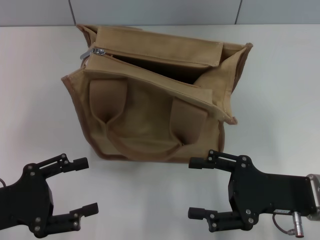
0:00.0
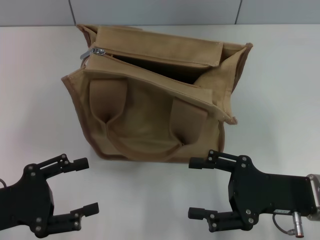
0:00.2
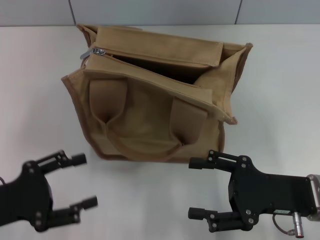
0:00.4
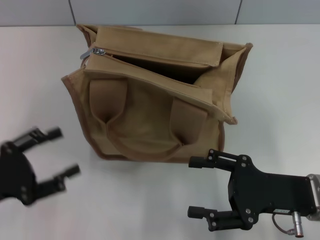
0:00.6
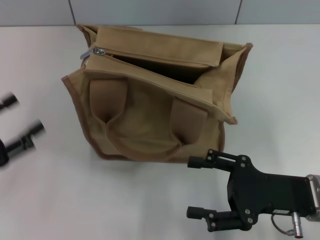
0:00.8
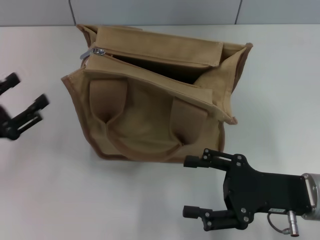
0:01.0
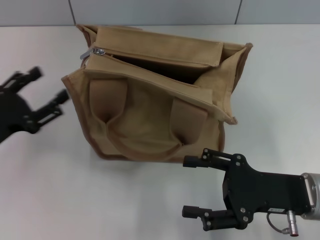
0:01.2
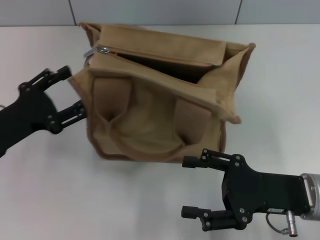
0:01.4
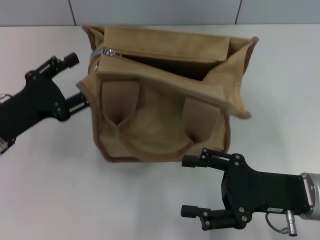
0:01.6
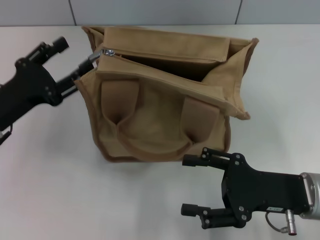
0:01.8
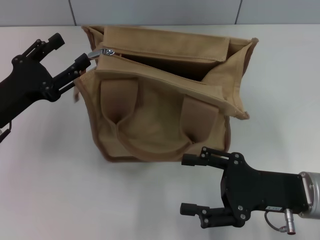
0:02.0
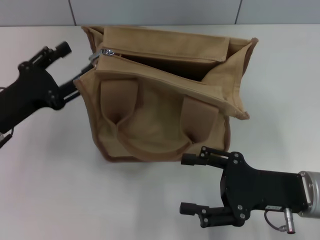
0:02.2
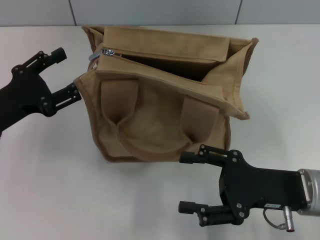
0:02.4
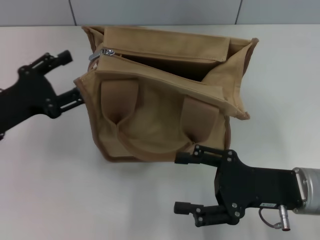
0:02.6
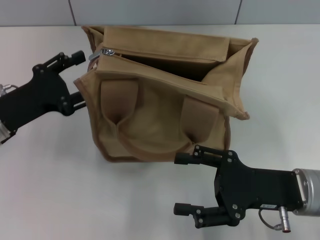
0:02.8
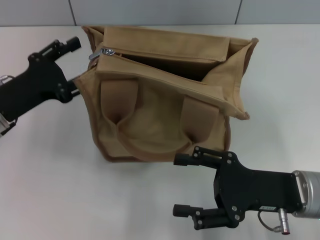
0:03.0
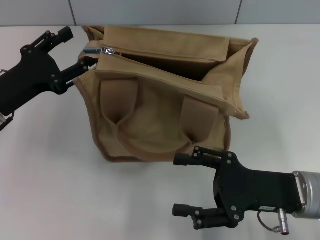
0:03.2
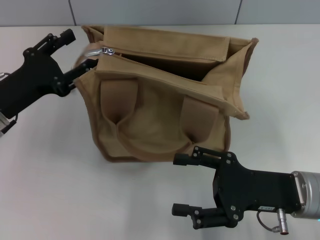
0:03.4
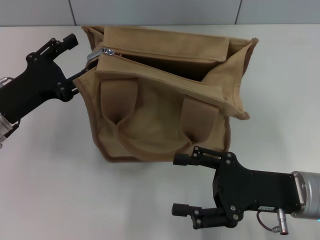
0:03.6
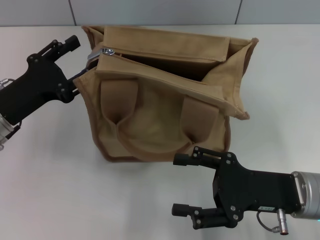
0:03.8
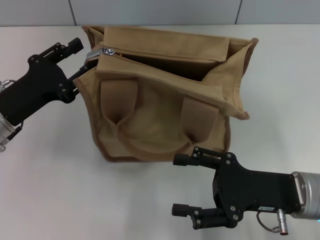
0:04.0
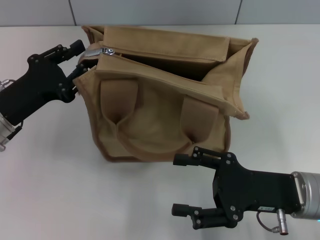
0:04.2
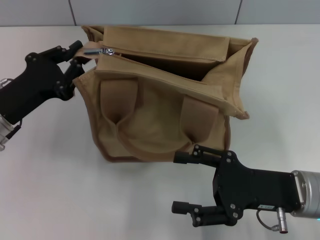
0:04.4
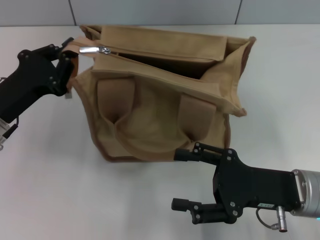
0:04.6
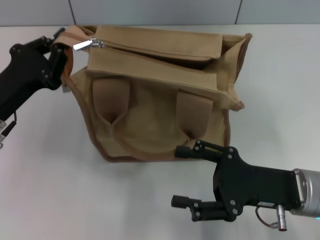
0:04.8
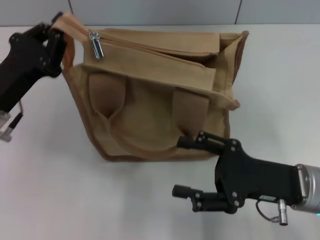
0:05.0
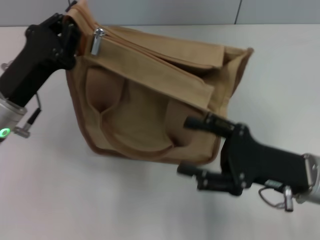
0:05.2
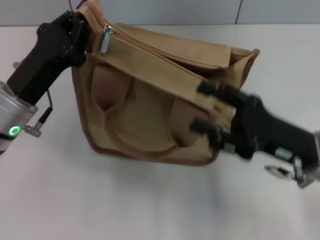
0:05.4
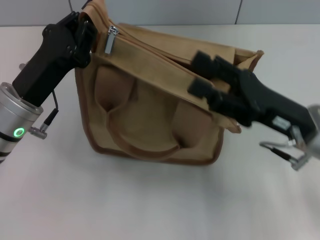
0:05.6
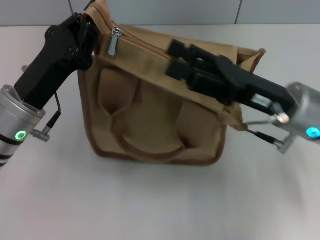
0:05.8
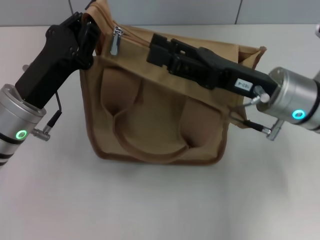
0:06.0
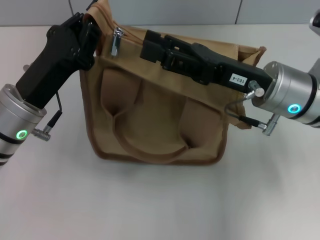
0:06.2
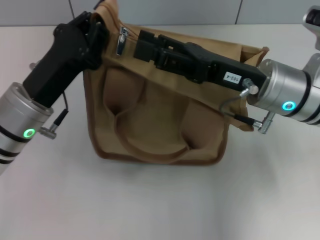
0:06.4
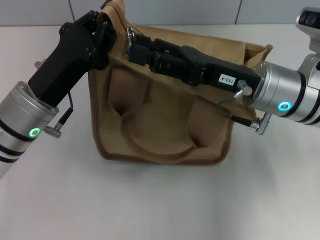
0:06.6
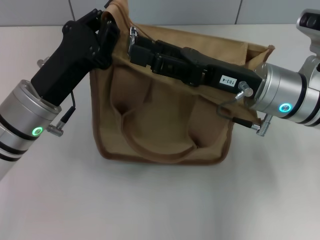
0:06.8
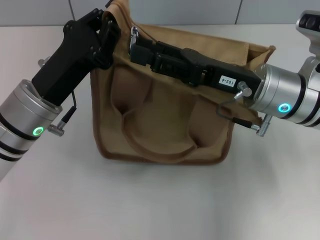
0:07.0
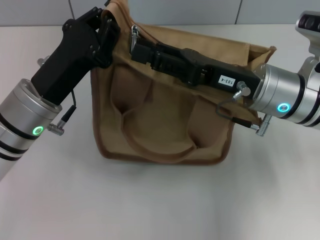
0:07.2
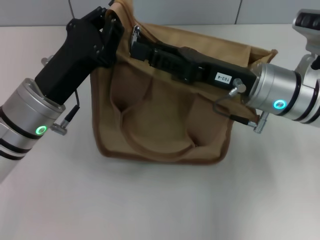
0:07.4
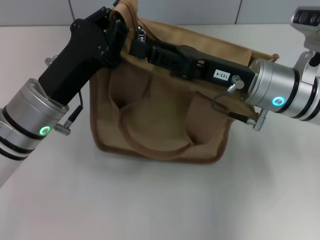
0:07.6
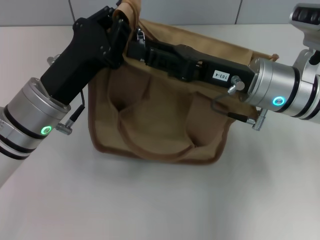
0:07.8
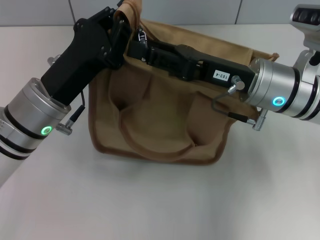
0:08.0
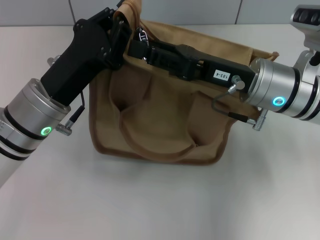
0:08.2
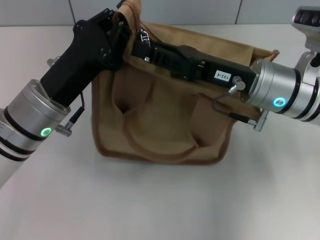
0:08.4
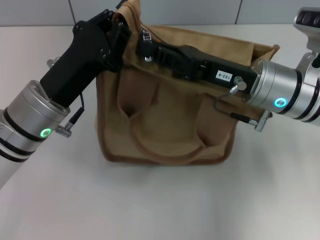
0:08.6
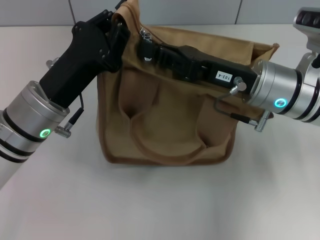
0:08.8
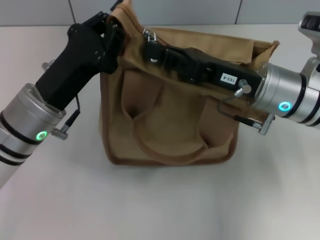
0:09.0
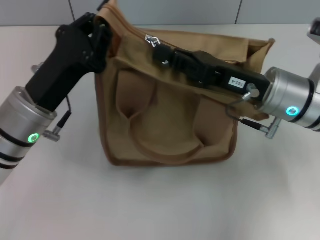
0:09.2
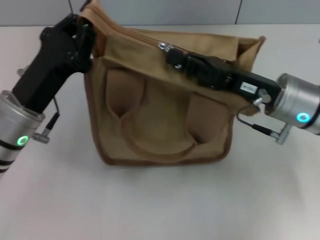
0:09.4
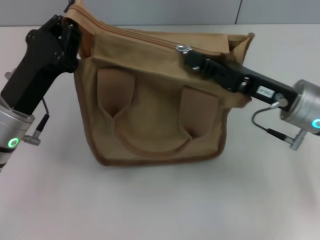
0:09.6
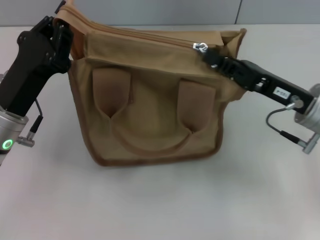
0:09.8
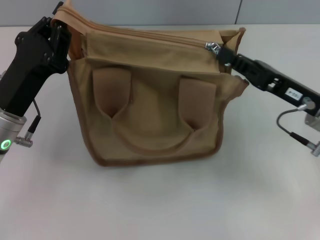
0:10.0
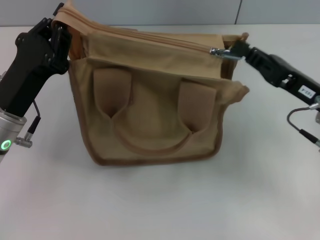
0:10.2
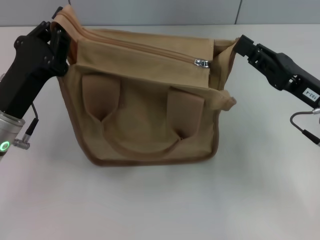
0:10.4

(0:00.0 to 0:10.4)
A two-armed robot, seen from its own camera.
Step, 0:00.0 - 0:10.2: Pull up the zipper with your right hand.
0:00.0 - 0:01.4: The left gripper travels forward by some 10 cm.
0:01.4 - 0:03.0: The grippers make only small movements.
0:03.0 - 0:04.4: The left gripper closes.
0:04.4 - 0:06.0: The right gripper heads forward and upward, covering approximately 10 cm, while the left gripper heads to the right, covering roughly 5 cm, and closes its fingers.
0:06.0 - 0:07.4: The right gripper closes.
0:07.4 - 0:09.0: The right gripper closes.
0:09.0 - 0:10.4: The right gripper heads to the right, covering about 10 cm. Meanwhile the left gripper changes place by some 5 cm.

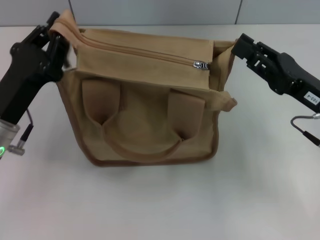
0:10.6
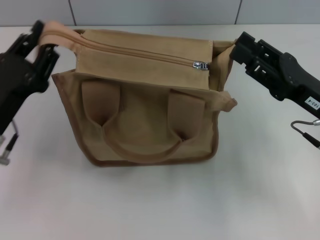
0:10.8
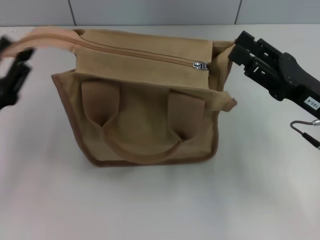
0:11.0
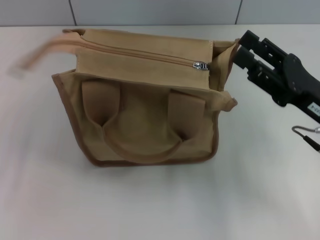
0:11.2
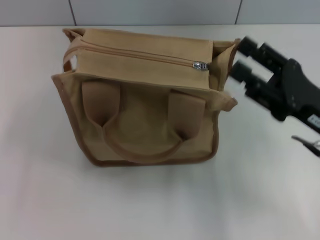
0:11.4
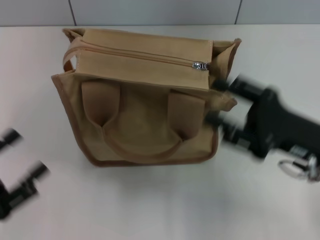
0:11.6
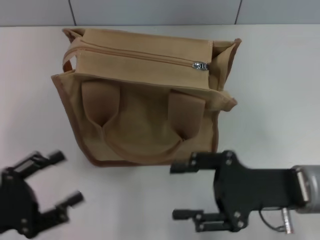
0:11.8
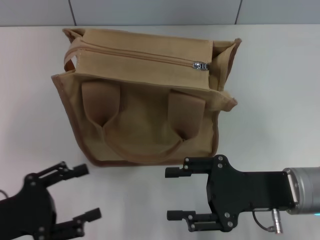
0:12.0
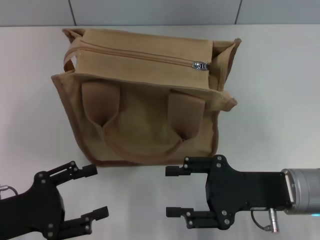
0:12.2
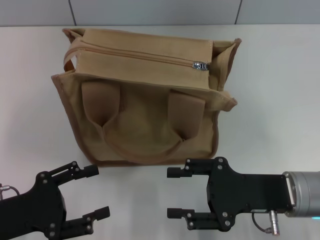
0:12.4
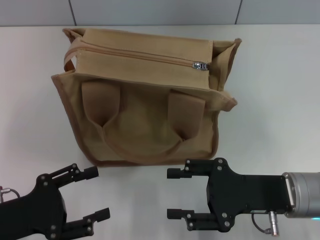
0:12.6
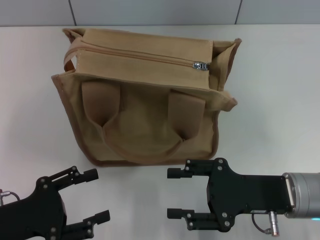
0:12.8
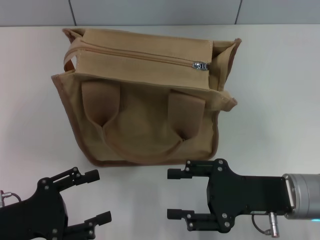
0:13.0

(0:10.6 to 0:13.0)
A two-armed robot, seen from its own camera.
Step, 0:10.6 - 0:11.0: Grab the zipper with your left hand.
0:10.6 - 0:11.8: The right gripper shifts roughly 5 cm backward, and opens its fingers; the left gripper heads backward and to the left, covering about 15 cm, and opens.
0:11.8 - 0:13.0: The grippers move only a little.

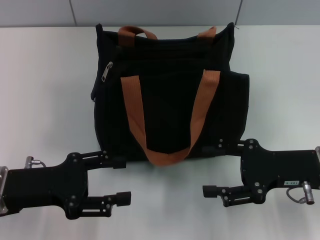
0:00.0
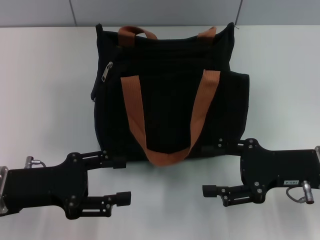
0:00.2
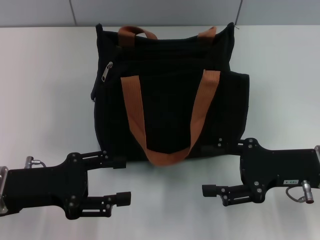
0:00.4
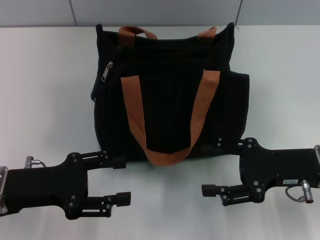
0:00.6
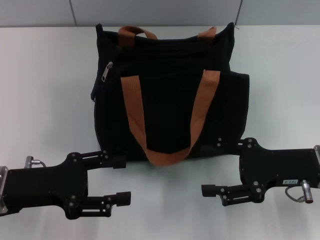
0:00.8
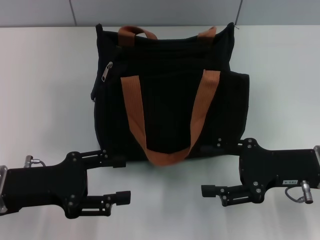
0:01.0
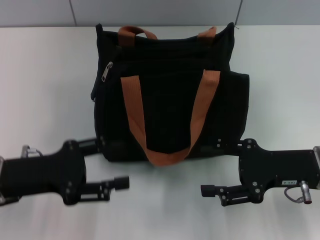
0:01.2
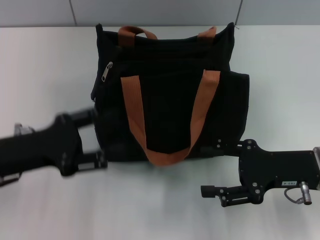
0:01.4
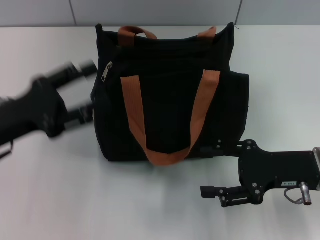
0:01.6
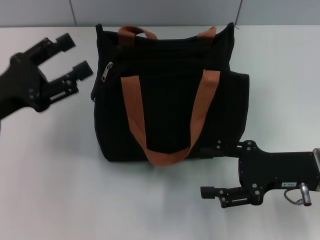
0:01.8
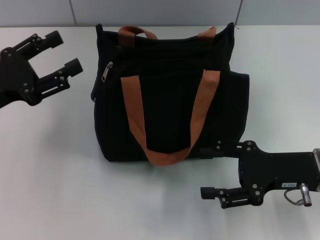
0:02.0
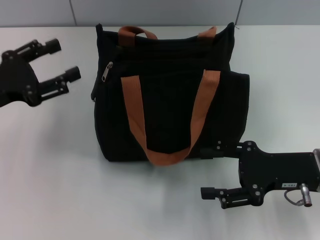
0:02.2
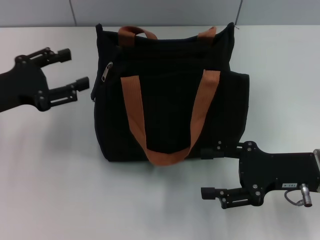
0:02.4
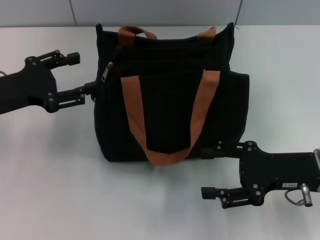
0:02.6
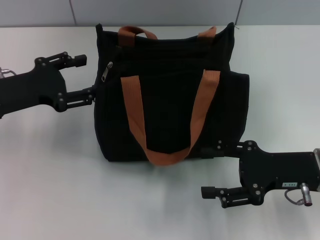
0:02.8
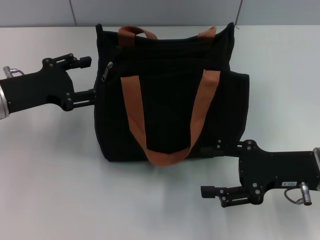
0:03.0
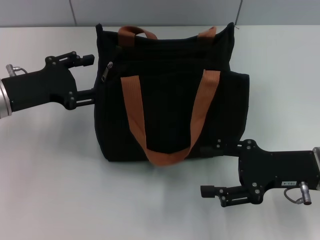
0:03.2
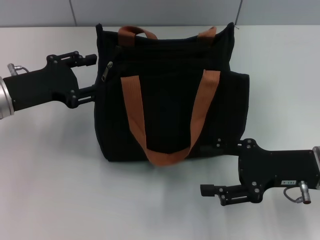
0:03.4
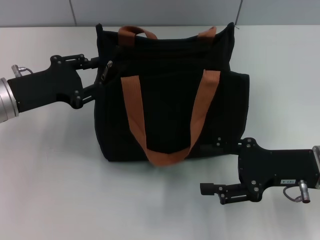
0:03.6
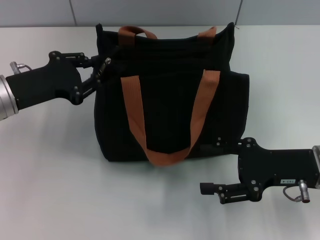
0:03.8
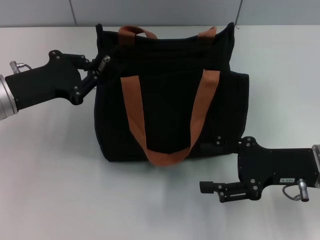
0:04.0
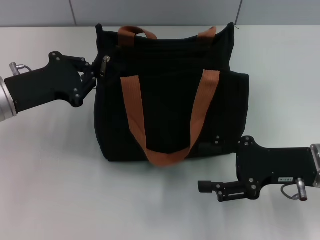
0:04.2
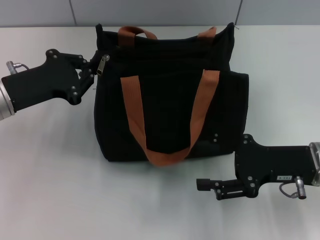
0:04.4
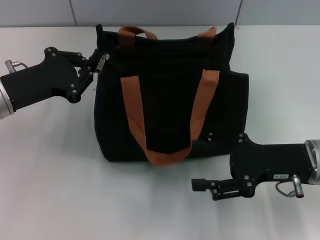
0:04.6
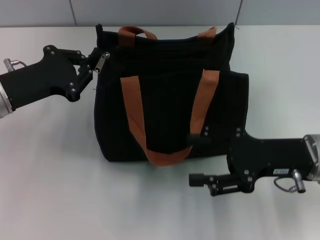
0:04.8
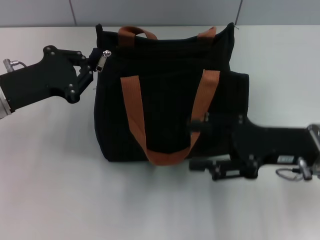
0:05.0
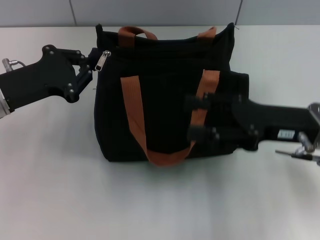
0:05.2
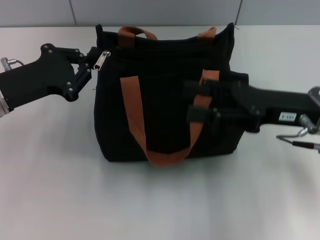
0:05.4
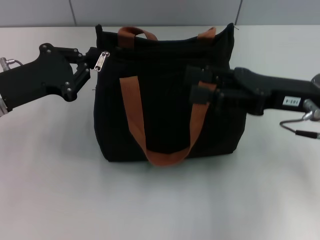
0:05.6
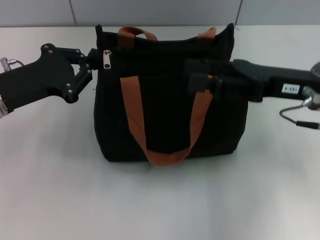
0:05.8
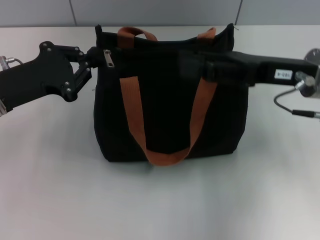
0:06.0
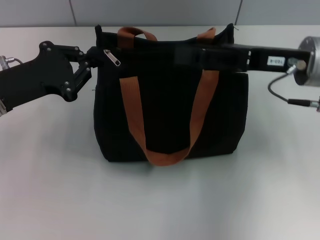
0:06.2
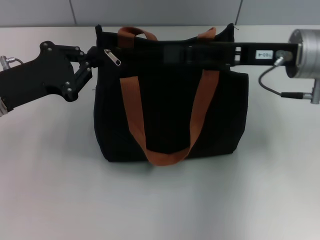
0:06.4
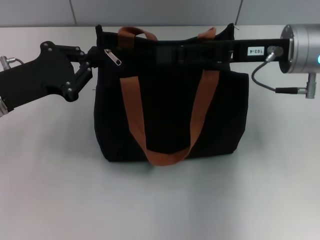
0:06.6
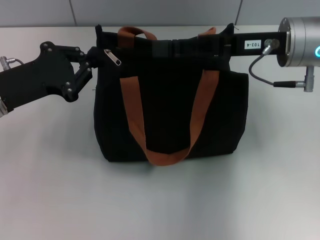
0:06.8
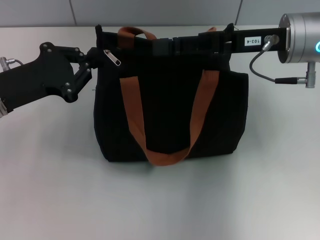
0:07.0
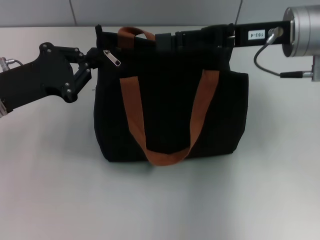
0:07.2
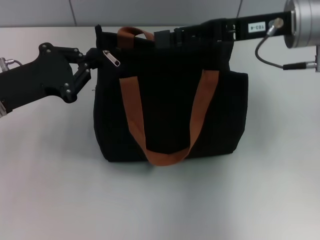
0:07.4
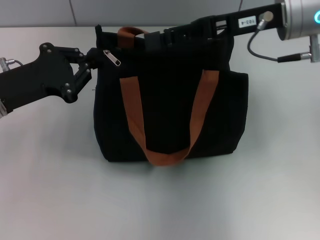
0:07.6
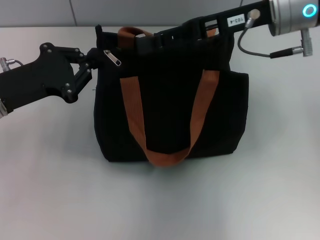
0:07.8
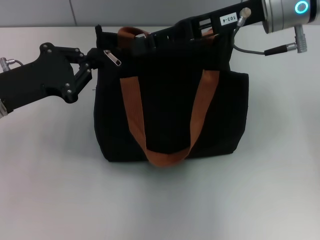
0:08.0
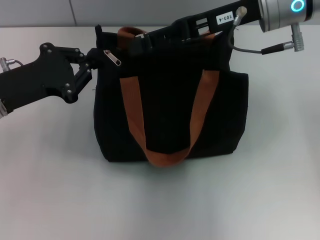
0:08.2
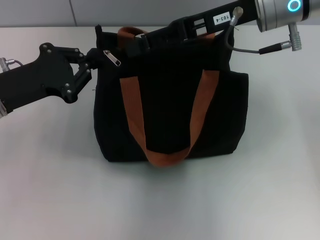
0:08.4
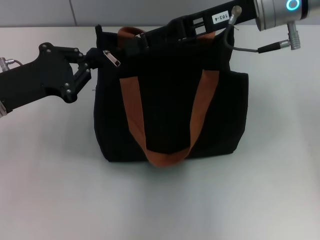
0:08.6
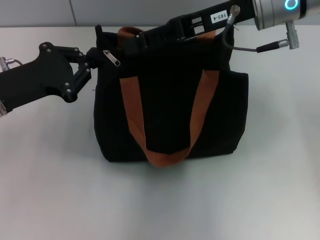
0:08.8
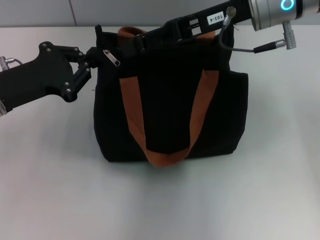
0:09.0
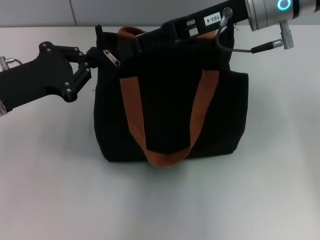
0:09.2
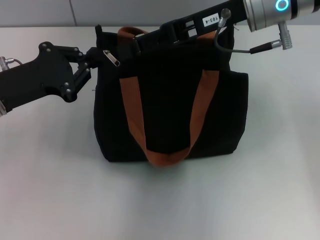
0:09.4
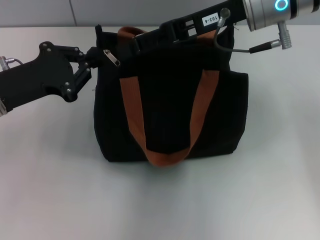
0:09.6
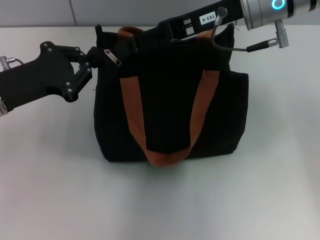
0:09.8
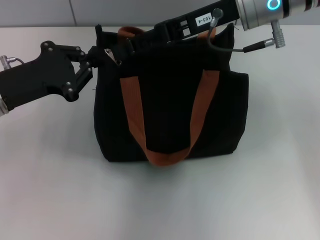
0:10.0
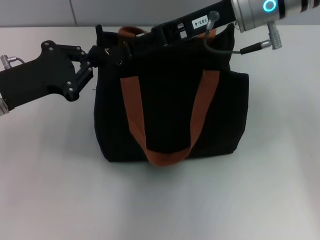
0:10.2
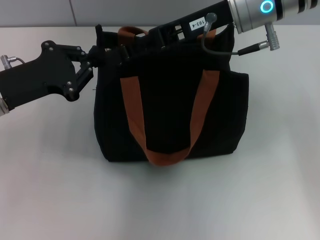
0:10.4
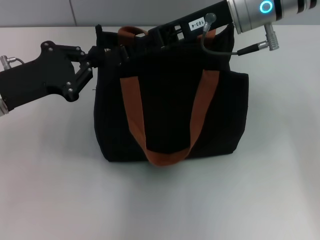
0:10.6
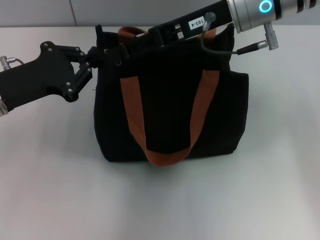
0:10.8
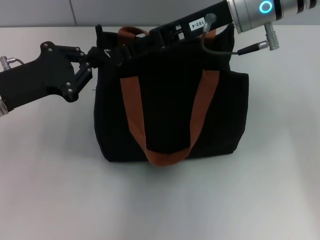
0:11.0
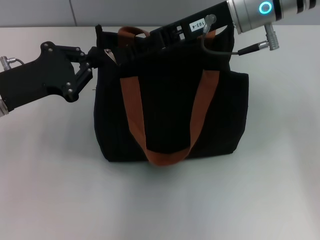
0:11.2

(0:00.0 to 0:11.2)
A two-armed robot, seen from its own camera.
0:01.6 - 0:03.2: The left gripper is displaced forward by about 5 cm.
0:03.2 - 0:04.8: The left gripper closes up.
0:04.8 - 0:06.4: The right gripper heads forward and upward, covering some 10 cm.
0:06.4 - 0:08.0: The right gripper moves upward, approximately 5 cm.
0:08.0 - 0:11.2: The grippers stay close to where they were, moving slightly.
